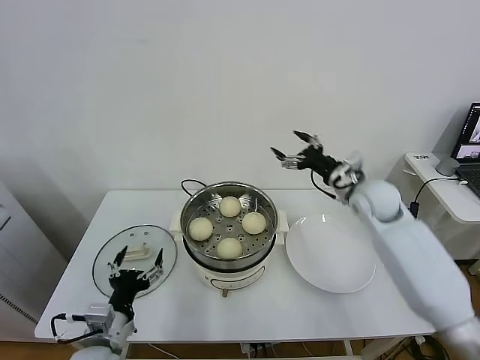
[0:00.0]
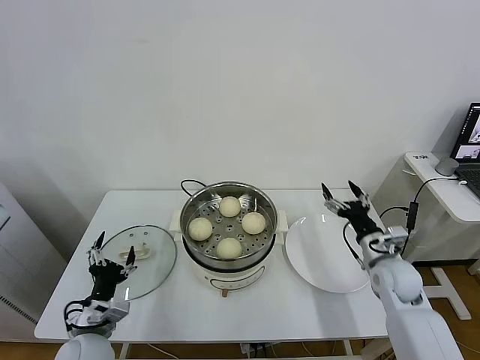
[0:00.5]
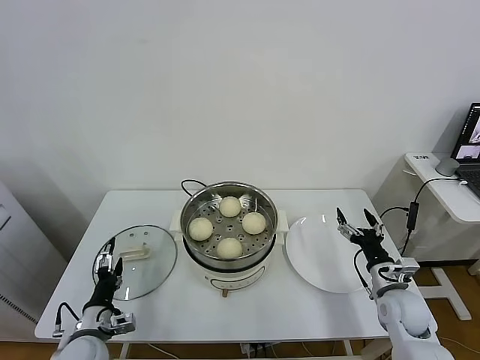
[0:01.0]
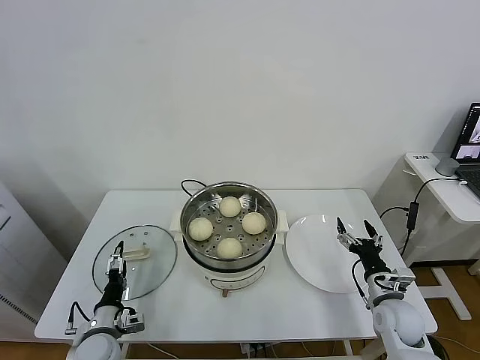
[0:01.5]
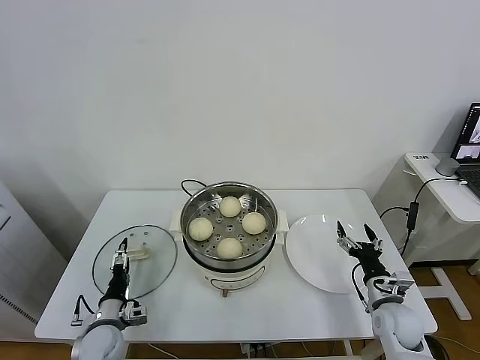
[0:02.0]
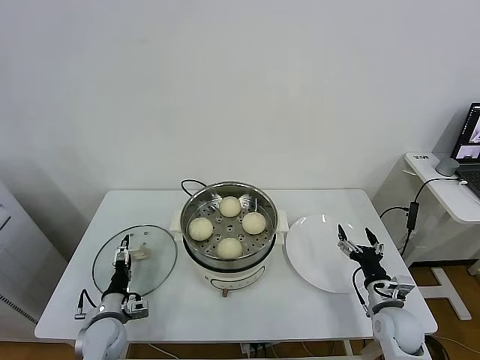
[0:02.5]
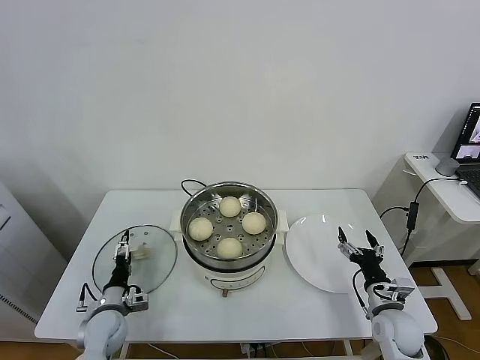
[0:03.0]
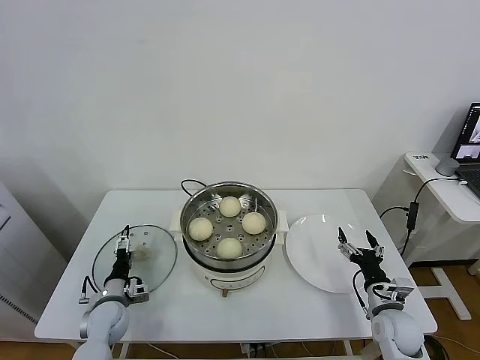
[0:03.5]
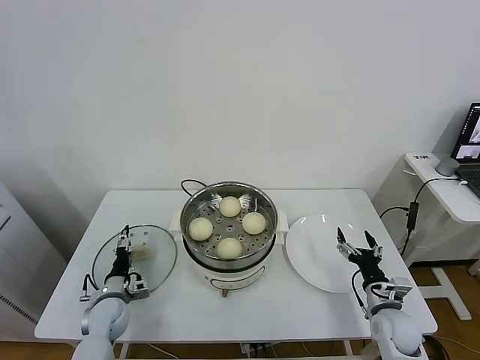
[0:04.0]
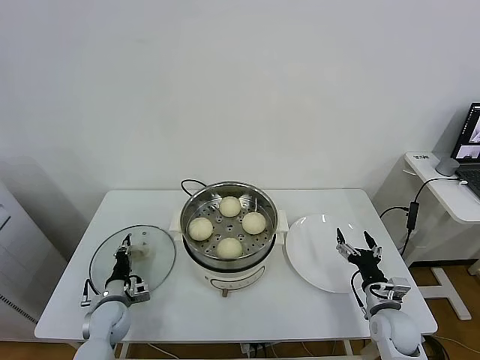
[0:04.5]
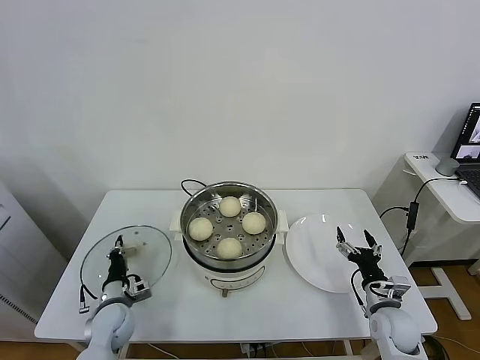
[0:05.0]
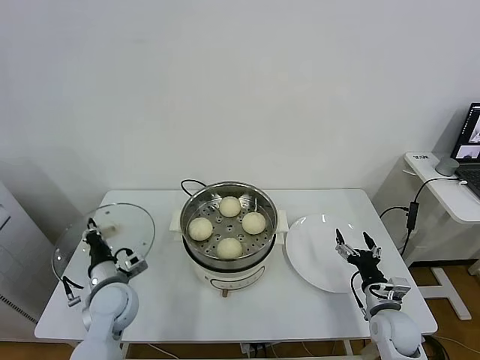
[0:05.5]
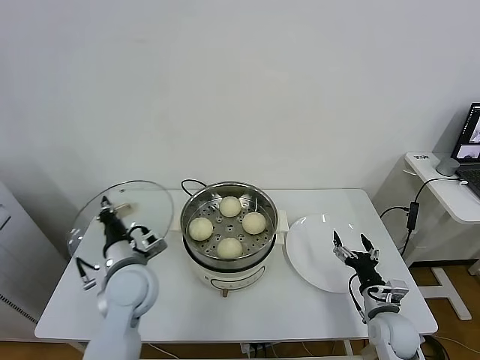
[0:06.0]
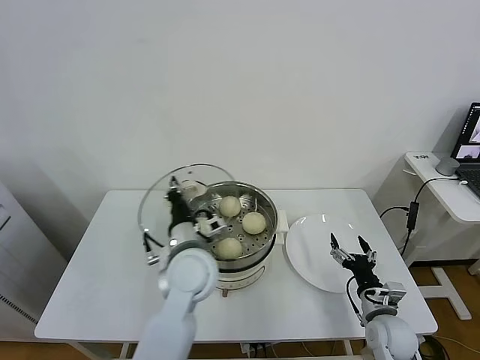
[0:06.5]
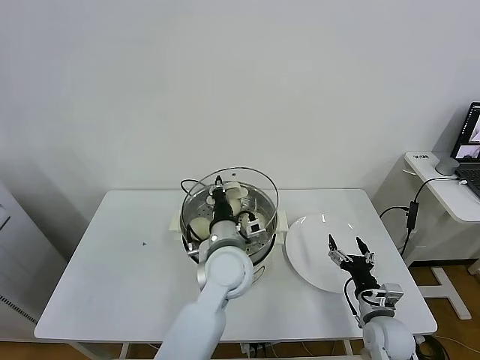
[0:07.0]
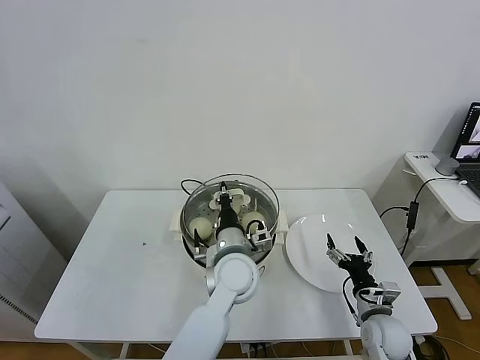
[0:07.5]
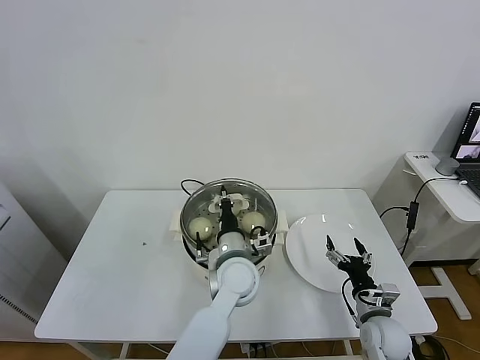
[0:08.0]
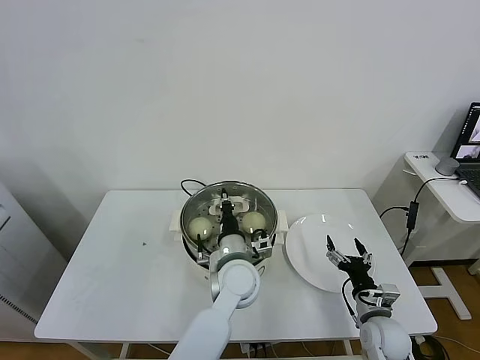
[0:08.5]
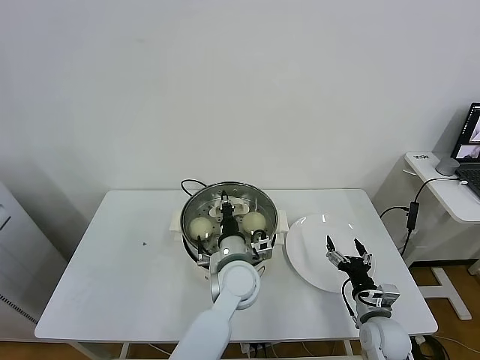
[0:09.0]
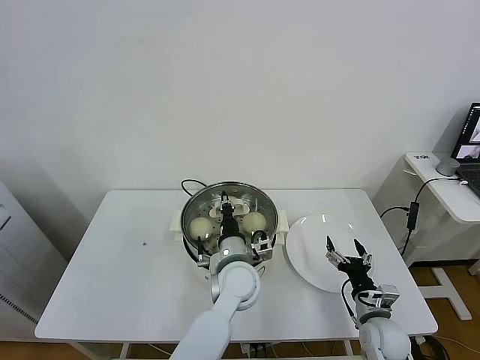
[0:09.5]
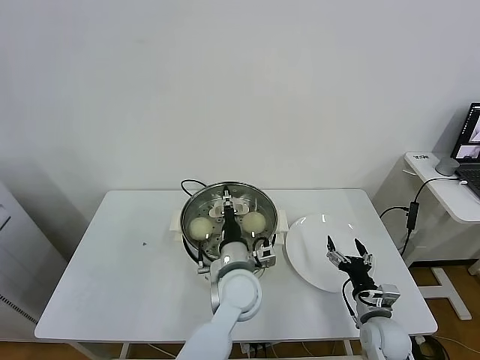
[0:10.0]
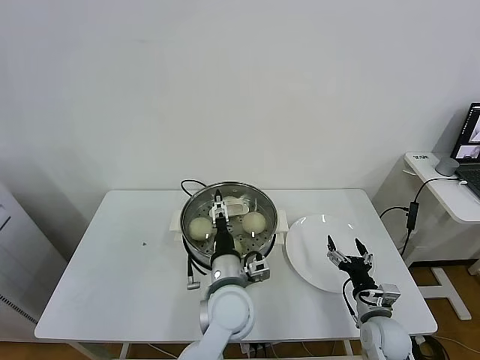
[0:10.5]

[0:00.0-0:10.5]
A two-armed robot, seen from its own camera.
Task of the whole recording: take steamed baozi put them in steamer.
Step, 0:00.0 to 0:04.5: Grasp the pot lid with left gripper.
Step, 0:05.0 to 0:10.0: Place the pot lid on the steamer with left gripper.
0:00.0 to 0:02.0: The left gripper goes roughly 15 cm downward, forward and to the left, while the right gripper travels downward and backward by approximately 30 cm.
0:02.0 to 0:04.0: The left gripper travels forward by some 5 cm.
0:04.0 to 0:06.5: The left gripper heads to the right and upward, covering approximately 35 cm, and closes up.
0:06.5 to 0:08.5: The left gripper is displaced to the right and downward by approximately 10 cm.
0:08.5 to 0:10.5: The left gripper shifts about 5 cm backward, and opens its fingers.

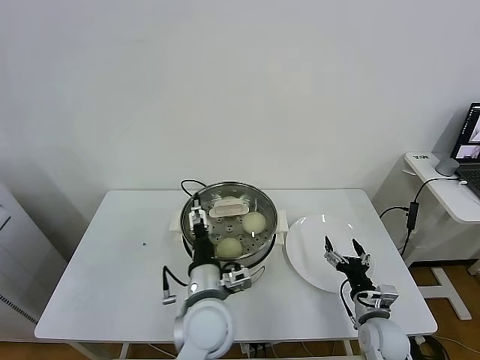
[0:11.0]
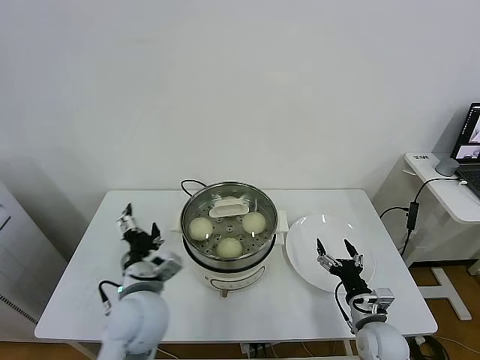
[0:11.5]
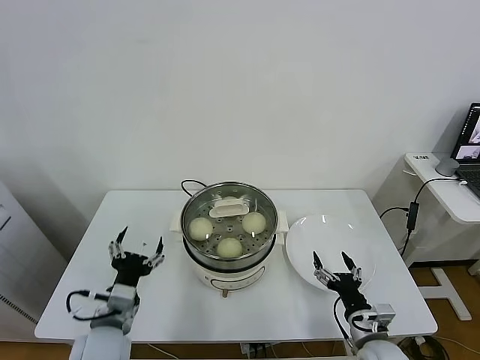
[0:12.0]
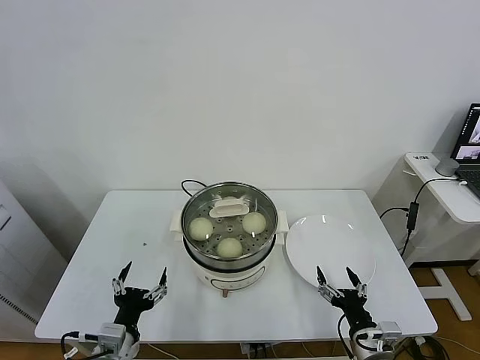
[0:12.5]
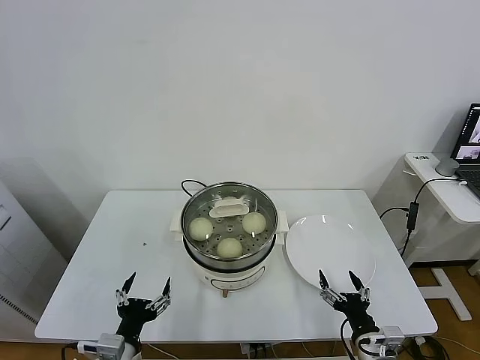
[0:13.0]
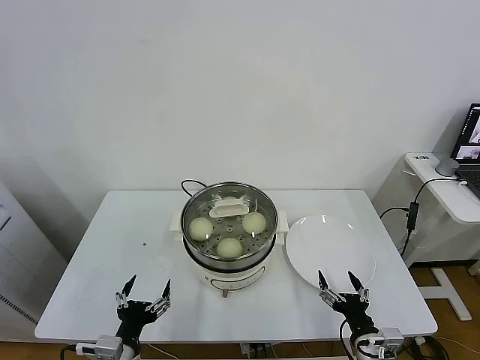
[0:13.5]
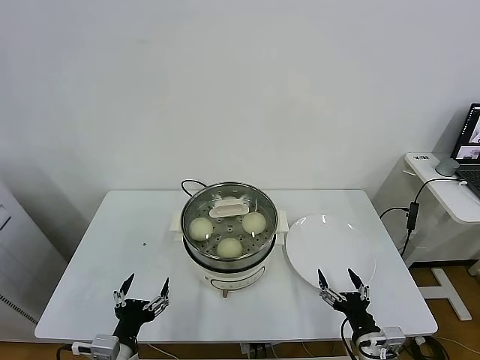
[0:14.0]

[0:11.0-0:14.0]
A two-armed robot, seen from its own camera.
Task of the whole recording: take steamed baozi put them in steamer.
0:11.0 to 0:12.5: The right gripper goes roughly 10 cm backward. The left gripper shifts about 20 cm to the left and backward.
0:12.5 to 0:14.0: There are only small adjustments of the grippers.

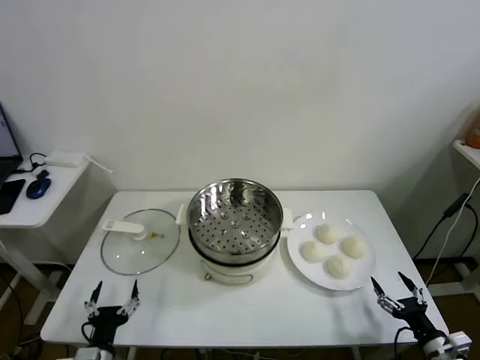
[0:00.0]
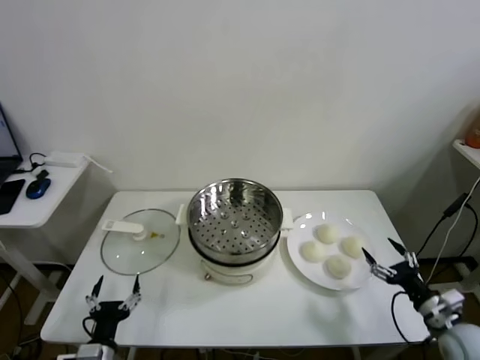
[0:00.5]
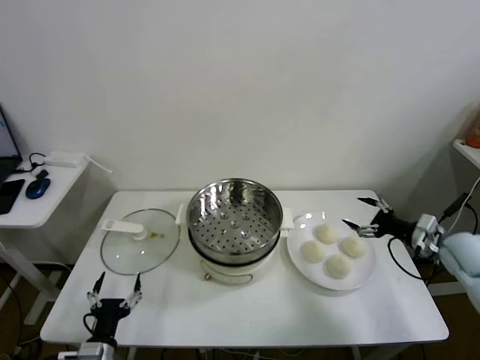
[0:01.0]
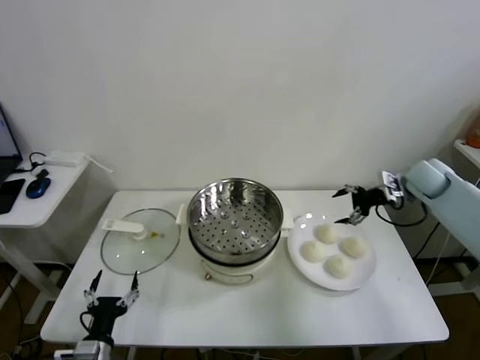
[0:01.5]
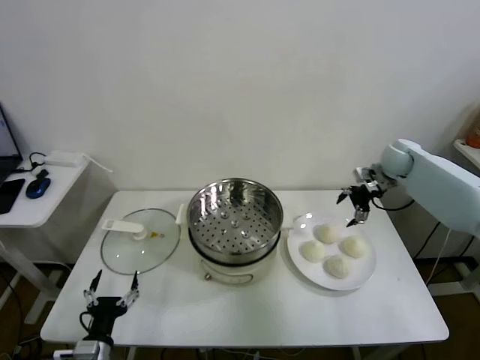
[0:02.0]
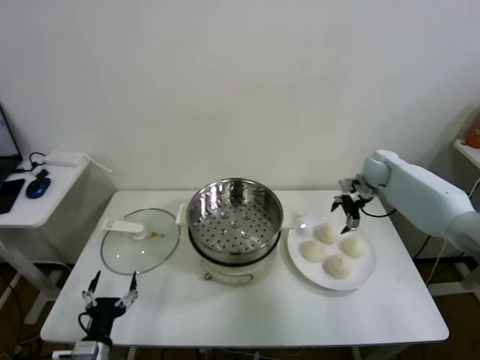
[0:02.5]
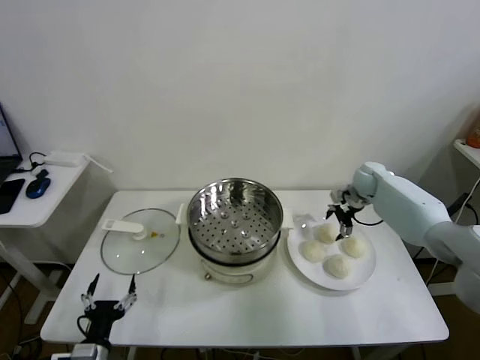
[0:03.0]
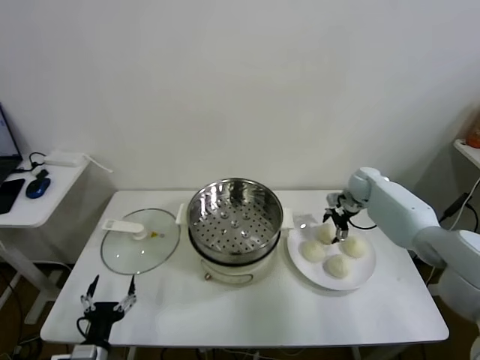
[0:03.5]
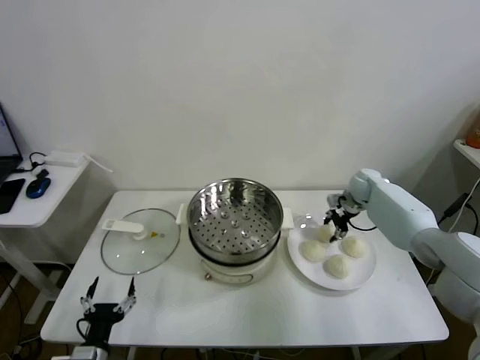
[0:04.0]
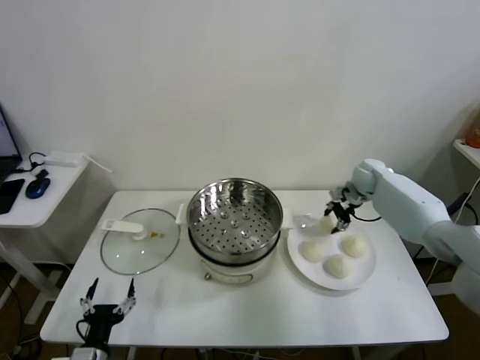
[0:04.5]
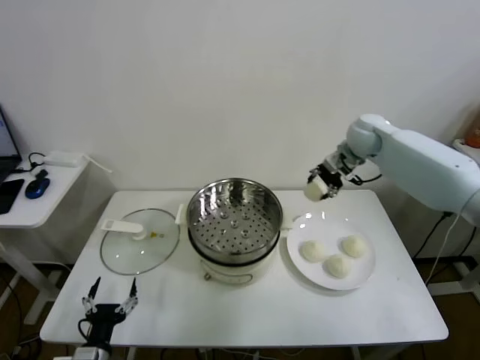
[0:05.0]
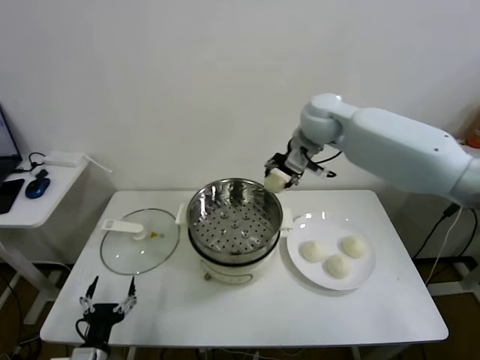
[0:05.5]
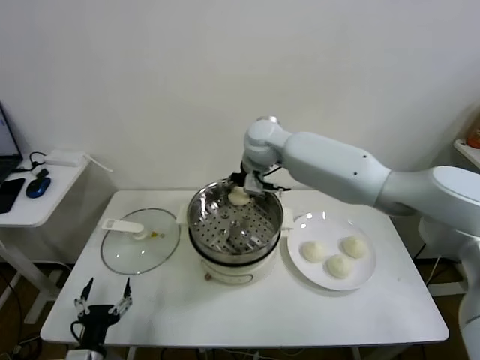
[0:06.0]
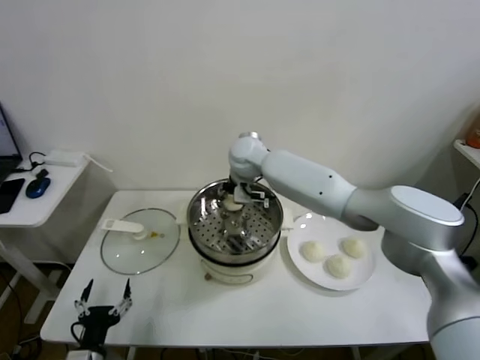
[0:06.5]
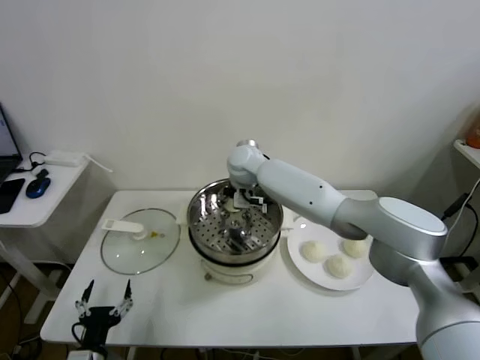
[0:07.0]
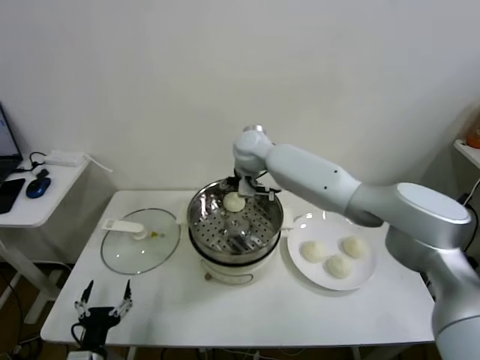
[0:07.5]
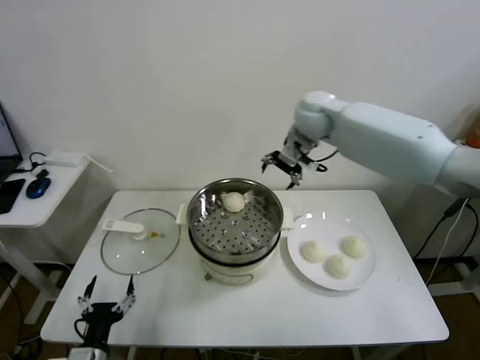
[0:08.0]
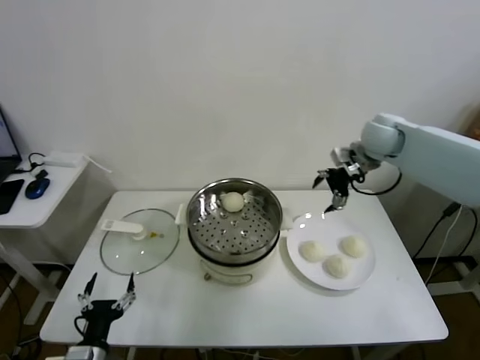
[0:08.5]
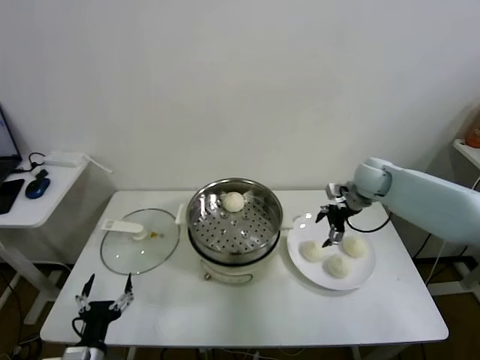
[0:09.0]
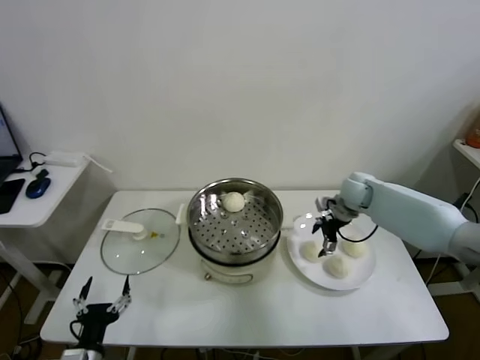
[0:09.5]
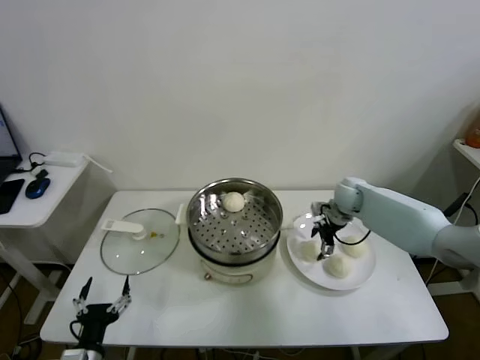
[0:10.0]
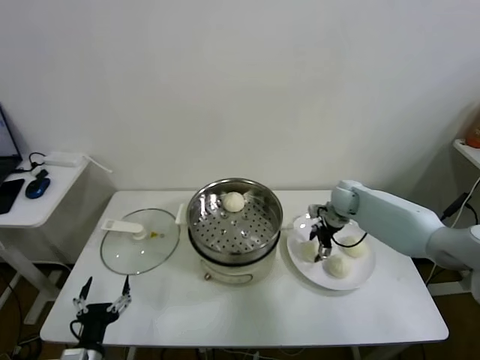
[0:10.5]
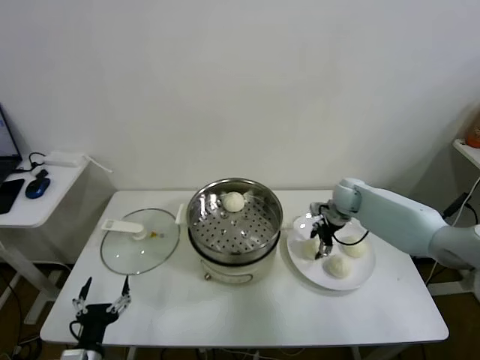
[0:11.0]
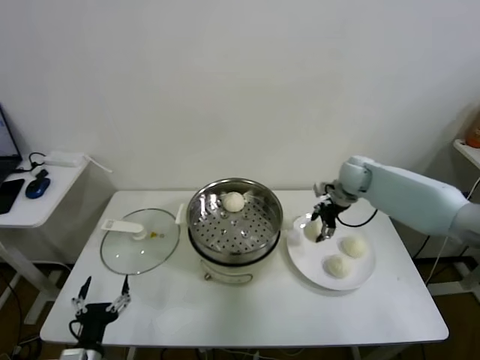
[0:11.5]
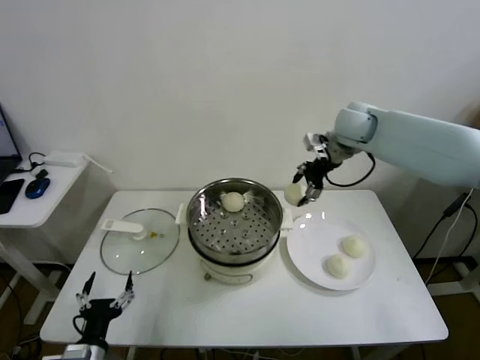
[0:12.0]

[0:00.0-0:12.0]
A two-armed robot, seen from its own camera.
Task of the whole recording: take steamed baozi put them in steamer.
Step, 0:00.0 to 0:03.5: Grasp the baozi in the plate with right gripper.
Step, 0:04.5 to 0:07.0: Place the baozi on the steamer with right gripper.
Step, 0:07.5 to 0:10.5: Grasp the baozi in the plate with right gripper.
0:02.0 to 0:04.0: The right gripper goes approximately 10 cm downward, and closes its fingers.
0:04.0 to 0:06.0: The right gripper travels to the left and upward by some 35 cm.
0:06.0 to 0:08.0: The right gripper moves to the right and upward, some 15 cm, and opens up.
0:08.0 to 0:10.0: The right gripper is displaced downward and to the right by some 25 cm.
0:10.0 to 0:12.0: The right gripper shifts some 25 cm upward, and closes its fingers.
